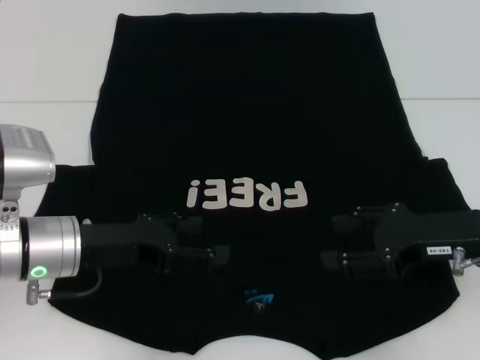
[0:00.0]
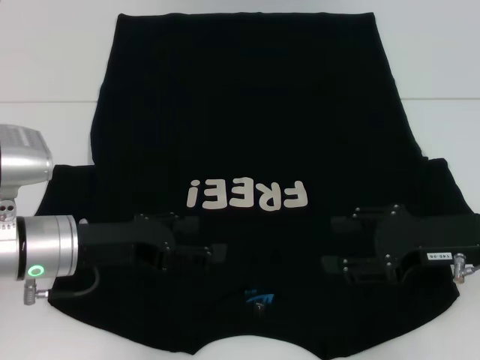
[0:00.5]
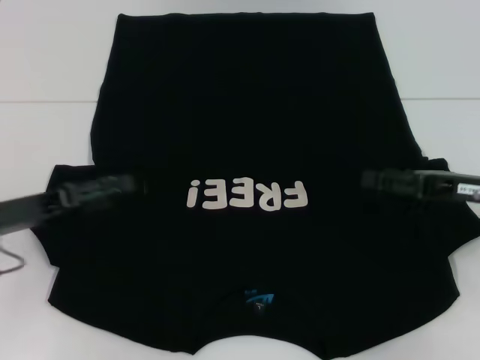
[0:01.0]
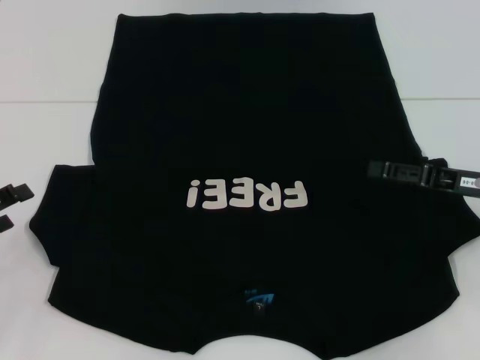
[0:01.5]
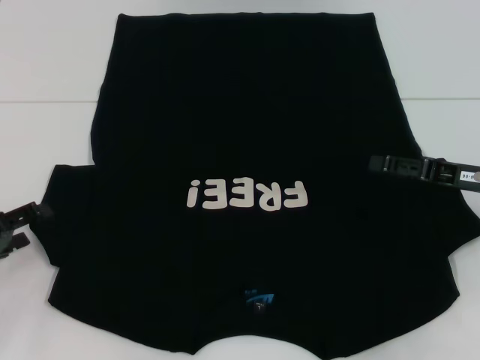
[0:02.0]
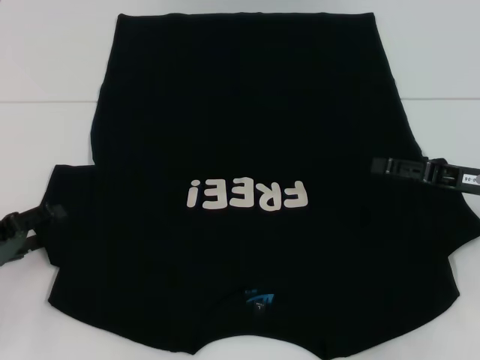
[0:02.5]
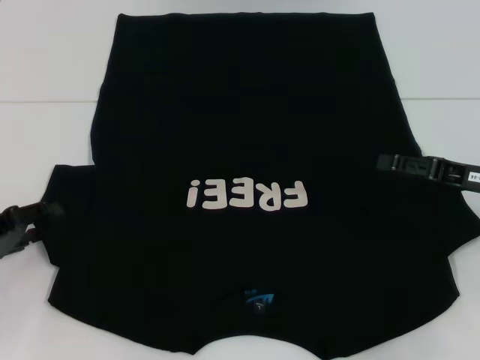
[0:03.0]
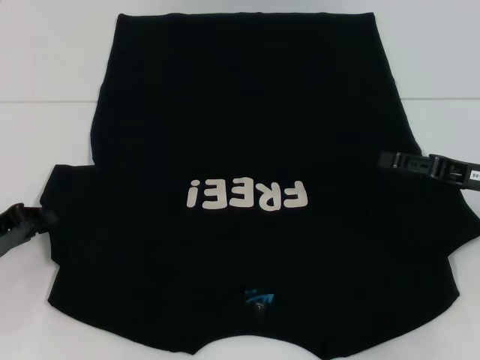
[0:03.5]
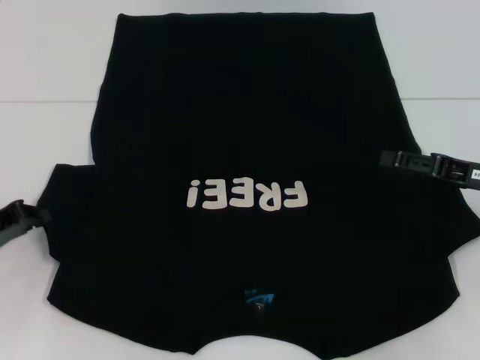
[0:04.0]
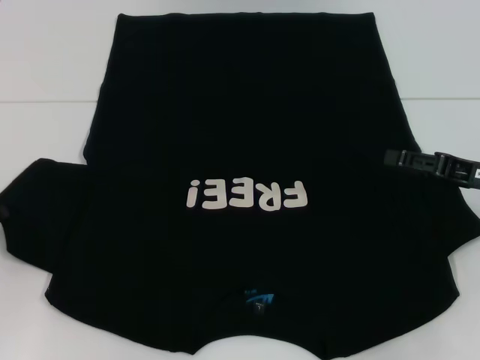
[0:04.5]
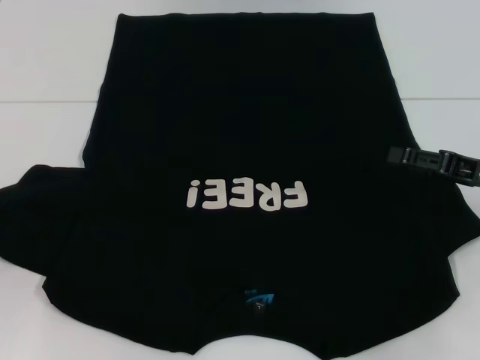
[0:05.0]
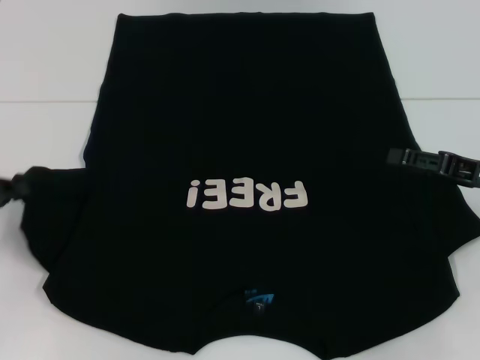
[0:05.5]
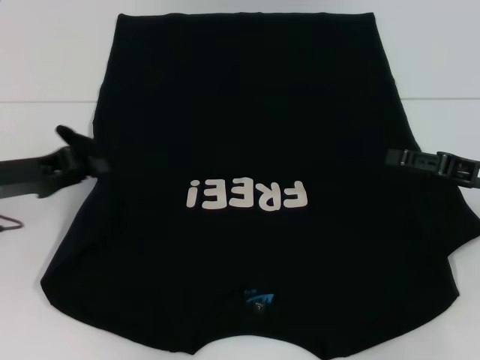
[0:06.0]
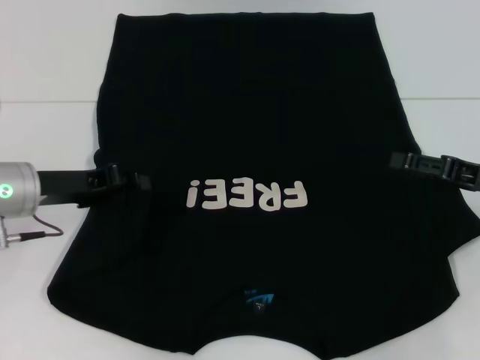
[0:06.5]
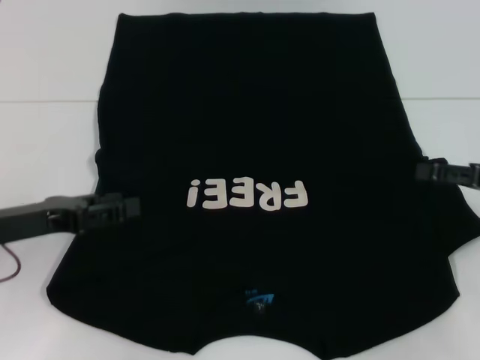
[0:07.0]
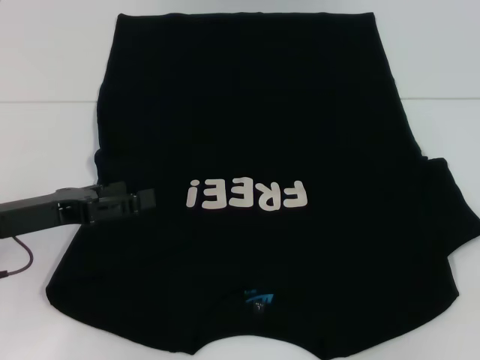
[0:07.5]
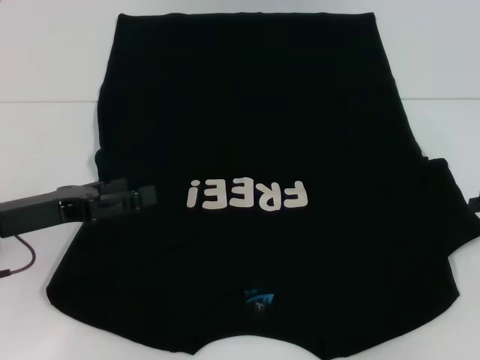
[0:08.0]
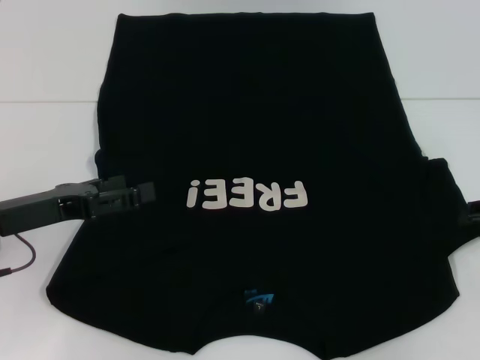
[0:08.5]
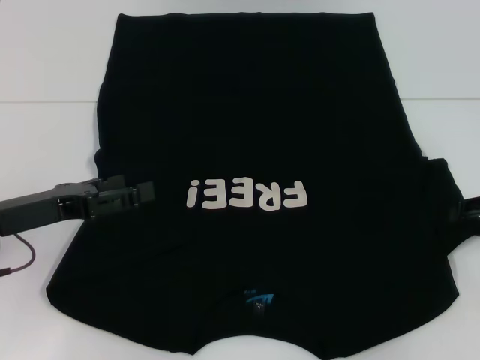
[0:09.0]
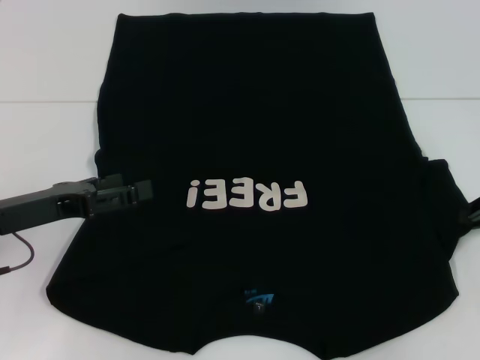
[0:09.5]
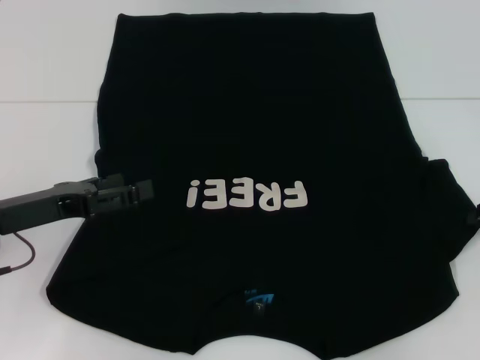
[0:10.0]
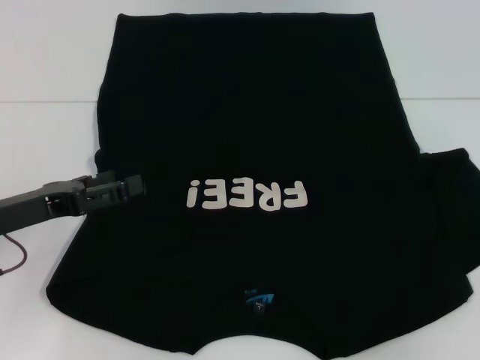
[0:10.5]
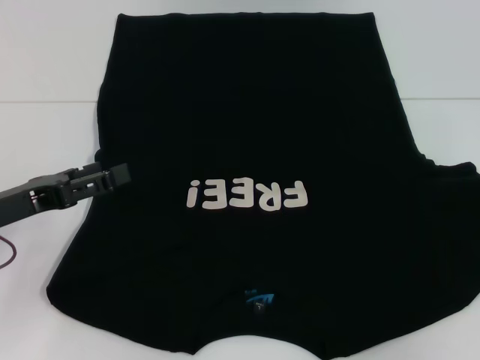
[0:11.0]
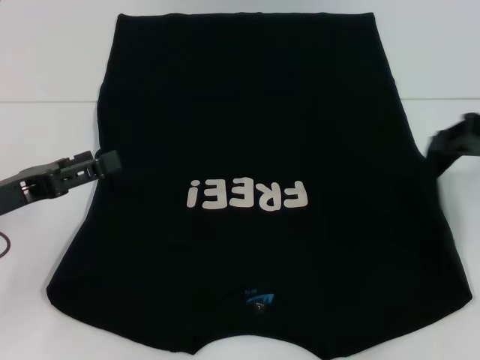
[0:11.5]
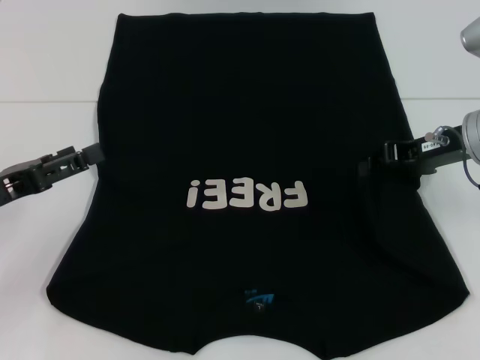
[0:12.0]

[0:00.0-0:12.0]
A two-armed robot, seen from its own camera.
Step, 0:00.0 to 0:06.5: Fold the bottom left sleeve with your left hand.
0:00.0 to 0:02.0: The left gripper shifts some 15 cm to the left; the right gripper shifts by roughly 5 cm.
0:02.0 to 0:04.0: The left gripper closes up.
0:04.0 to 0:06.0: The left gripper is displaced upward by some 5 cm.
0:06.0 to 0:08.0: The right gripper is displaced to the right by some 5 cm; the left gripper opens its fingers.
0:10.0 to 0:12.0: The right gripper shifts approximately 10 cm to the left.

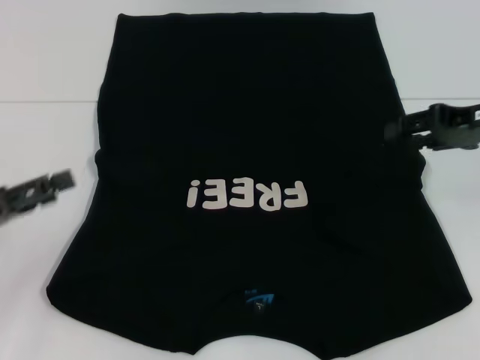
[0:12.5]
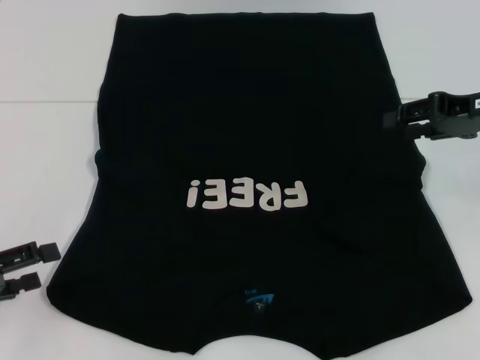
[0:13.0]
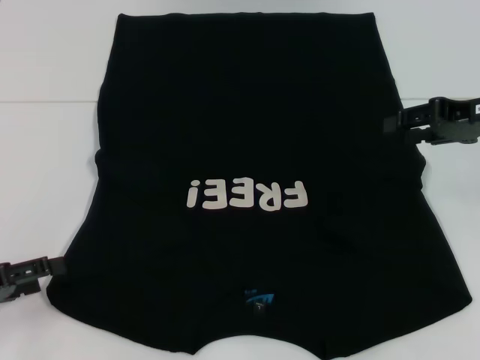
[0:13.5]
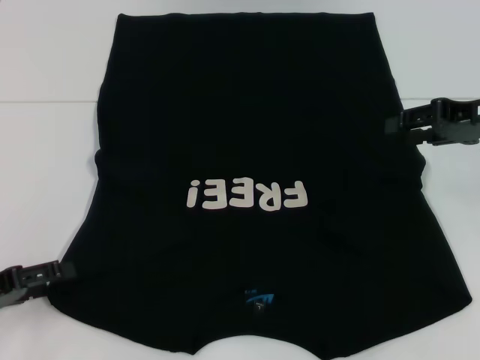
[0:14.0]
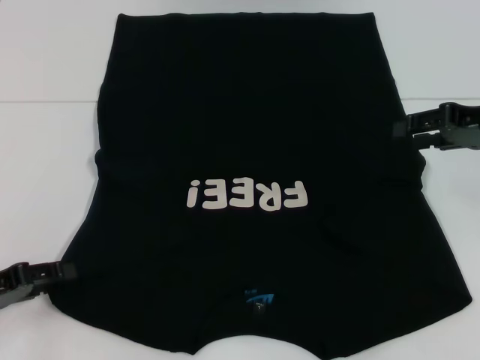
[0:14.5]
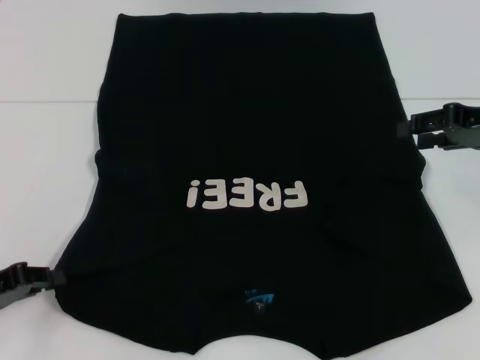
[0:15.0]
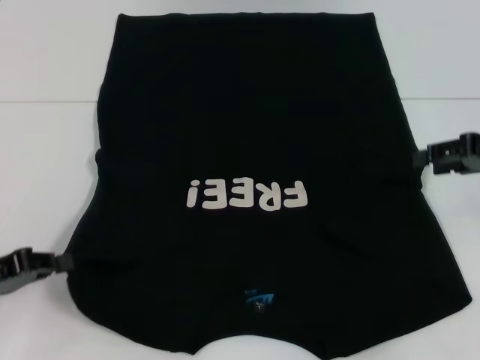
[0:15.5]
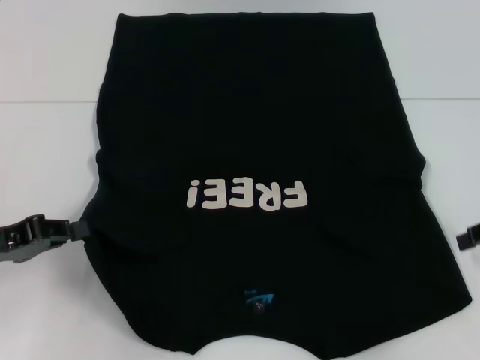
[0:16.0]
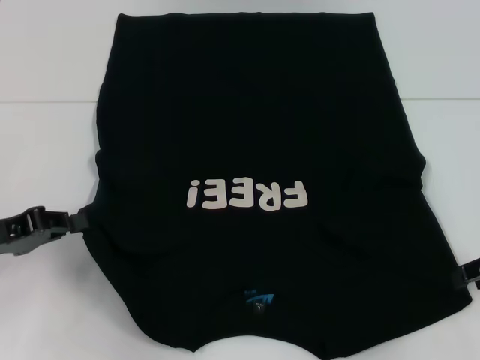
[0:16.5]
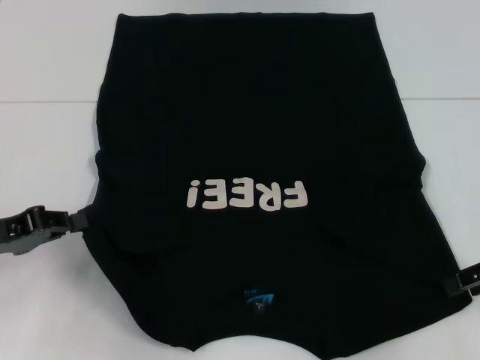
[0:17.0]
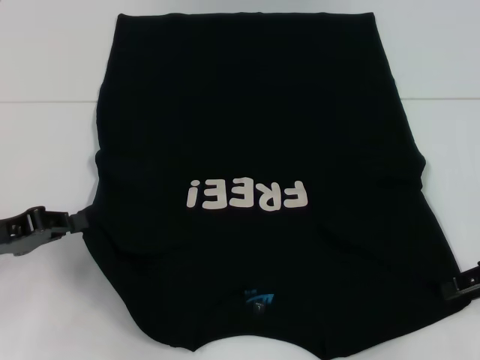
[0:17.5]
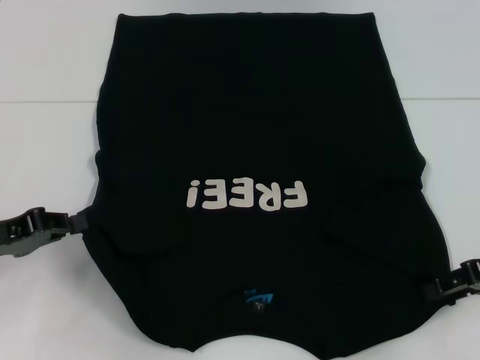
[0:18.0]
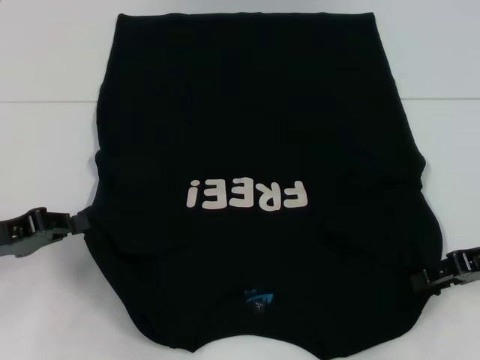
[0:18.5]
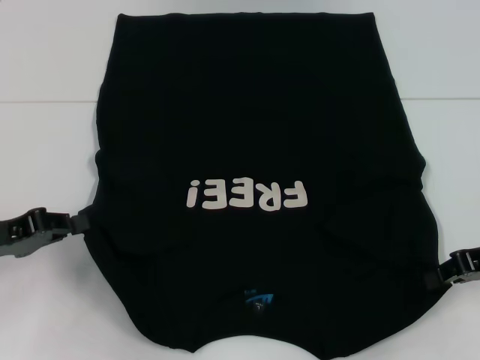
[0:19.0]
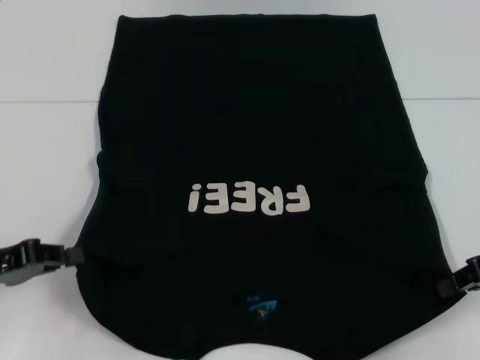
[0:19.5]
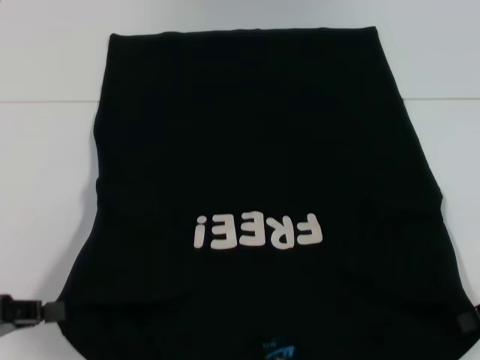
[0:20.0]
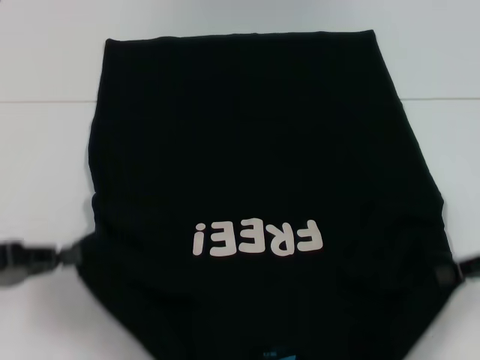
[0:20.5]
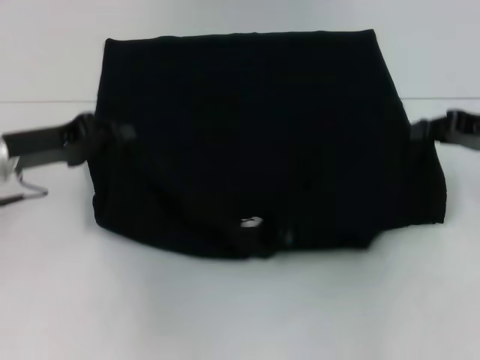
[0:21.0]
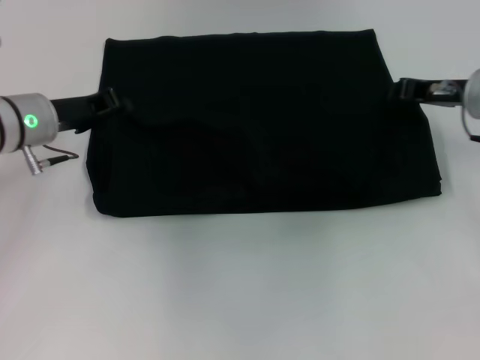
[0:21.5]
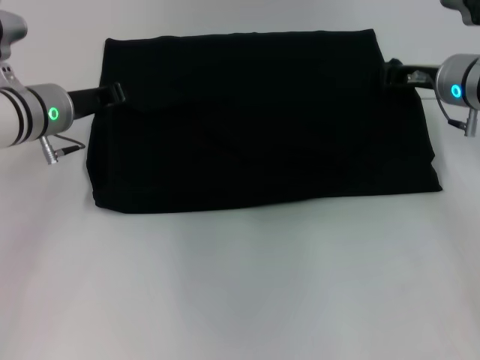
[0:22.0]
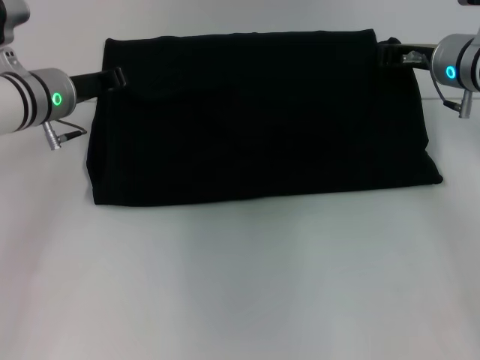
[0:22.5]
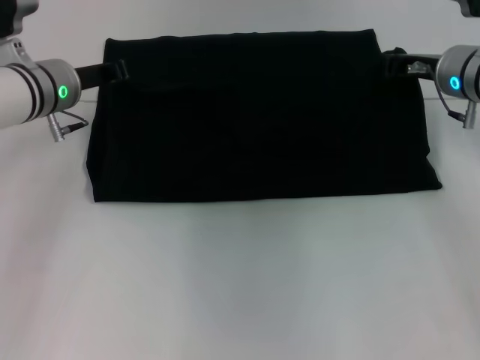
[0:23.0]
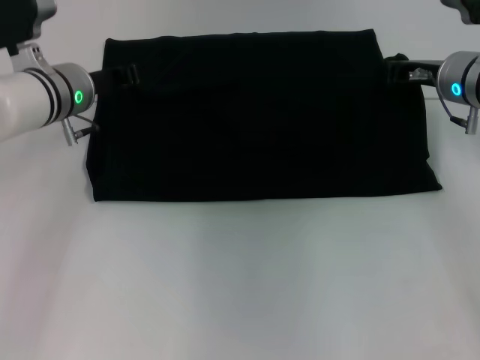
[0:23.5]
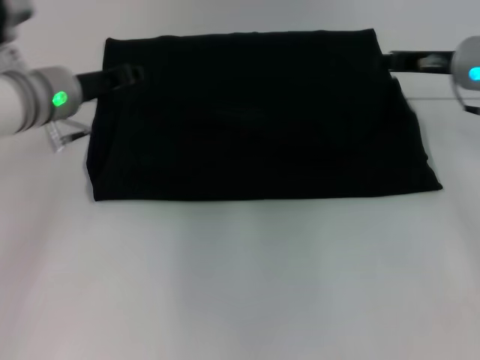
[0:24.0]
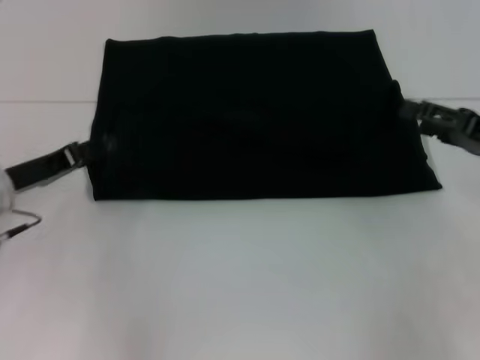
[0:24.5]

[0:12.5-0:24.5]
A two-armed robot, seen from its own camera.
Step, 0:12.5 to 0:15.0: Grab the bottom left corner with your left hand.
Step, 0:15.5 to 0:18.5: Grab the bottom right corner with your right hand.
Step, 0:19.0 to 0:24.0: Fold the clothes with your left hand.
Step, 0:19.0 to 0:24.0: Fold the clothes with your right hand.
0:12.5 to 0:14.5: The left gripper travels downward by roughly 5 cm.
0:14.5 to 0:16.5: The left gripper closes up. Meanwhile the right gripper is displaced backward and downward by roughly 10 cm.
0:16.5 to 0:18.5: The grippers make only small movements.
0:18.5 to 0:20.5: The right gripper closes its fingers.
0:20.5 to 0:22.5: The right gripper heads forward and to the left, covering some 20 cm; the left gripper moves forward and to the right, approximately 25 cm.
0:22.5 to 0:24.5: The left gripper moves backward, to the left and downward, approximately 15 cm, and opens up; the right gripper goes about 15 cm backward and to the right, and opens up.

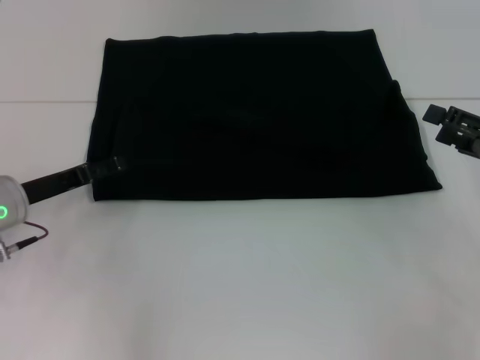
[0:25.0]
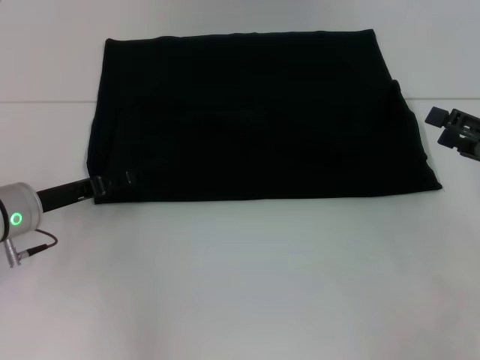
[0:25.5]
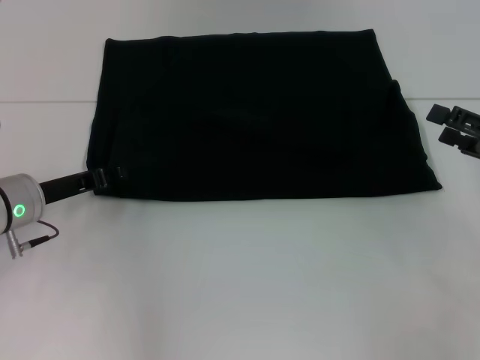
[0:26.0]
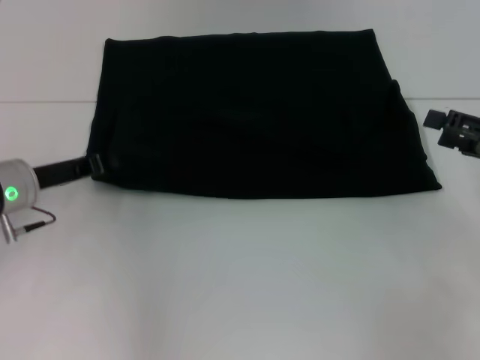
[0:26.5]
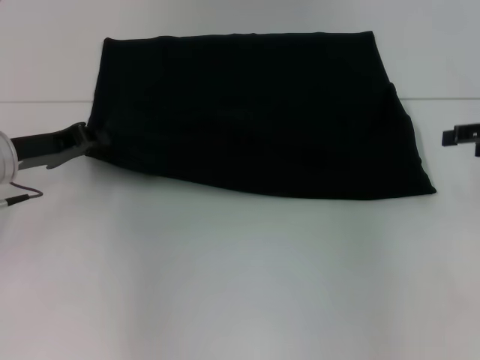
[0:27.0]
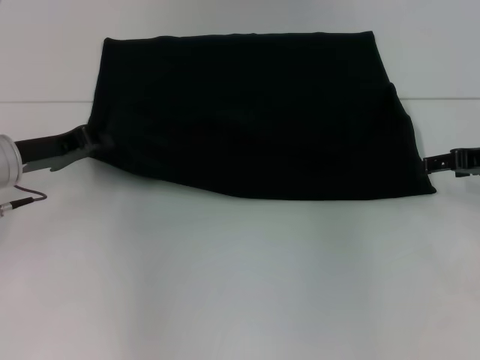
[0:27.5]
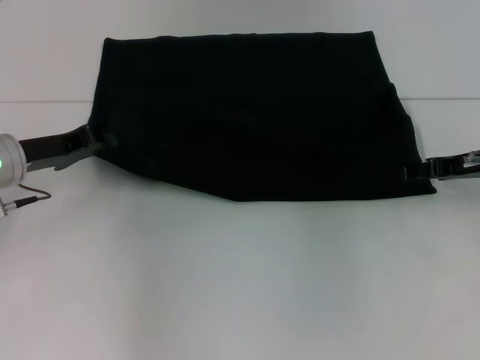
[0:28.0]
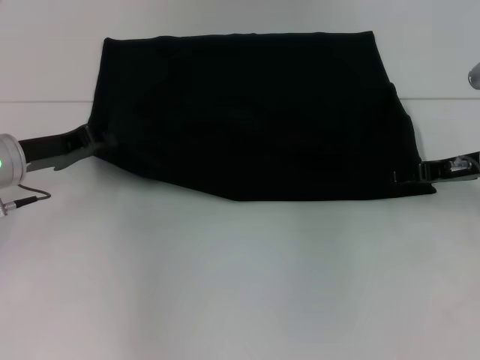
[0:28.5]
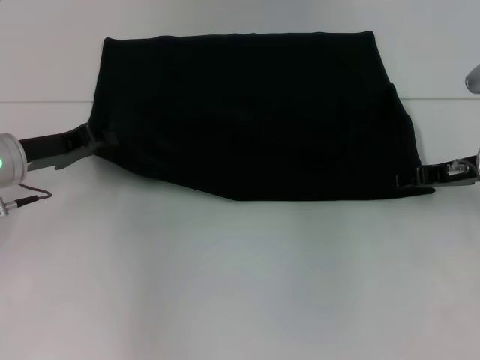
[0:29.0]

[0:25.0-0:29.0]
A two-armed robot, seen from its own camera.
0:25.0 to 0:27.0: The right gripper goes about 10 cm forward and upward. The left gripper changes place by some 5 cm, and closes.
0:27.0 to 0:29.0: The right gripper is displaced to the left and downward by approximately 10 cm.
